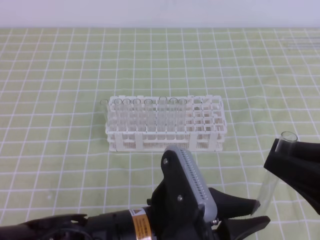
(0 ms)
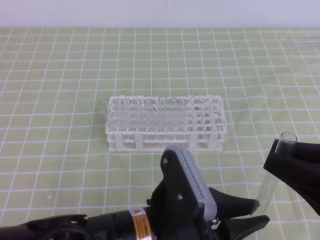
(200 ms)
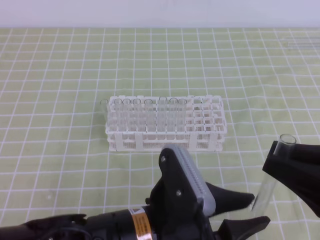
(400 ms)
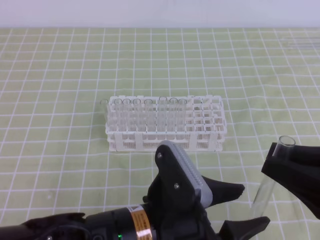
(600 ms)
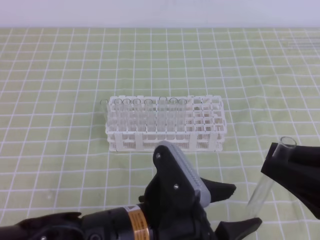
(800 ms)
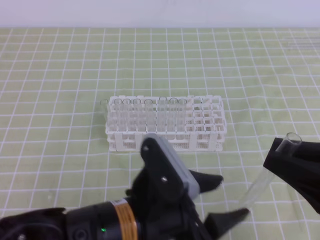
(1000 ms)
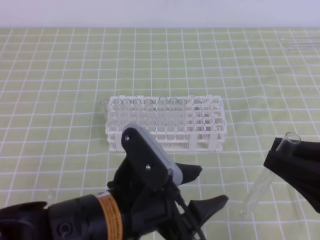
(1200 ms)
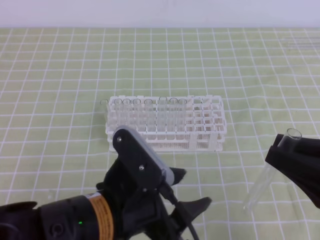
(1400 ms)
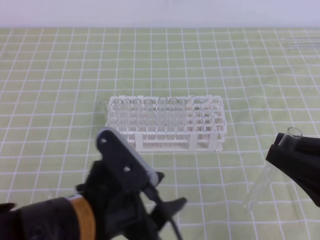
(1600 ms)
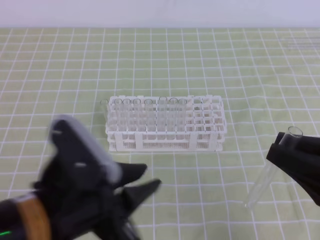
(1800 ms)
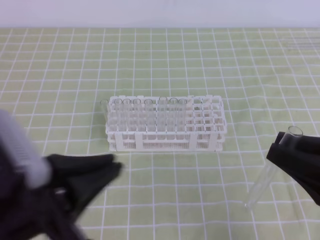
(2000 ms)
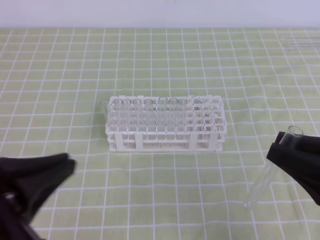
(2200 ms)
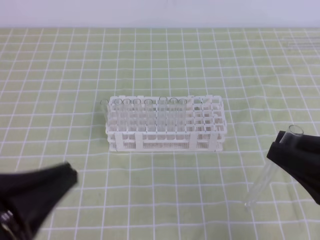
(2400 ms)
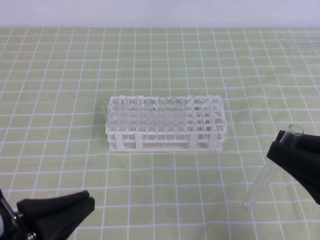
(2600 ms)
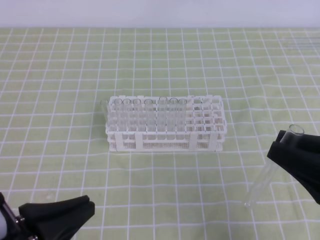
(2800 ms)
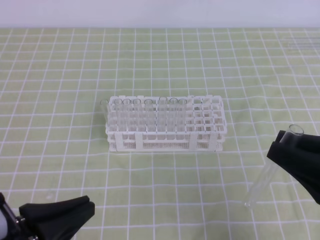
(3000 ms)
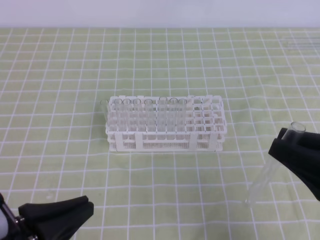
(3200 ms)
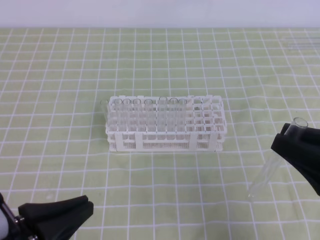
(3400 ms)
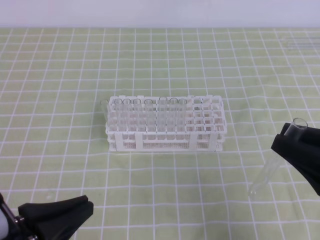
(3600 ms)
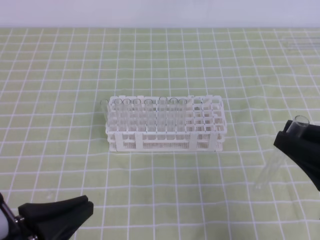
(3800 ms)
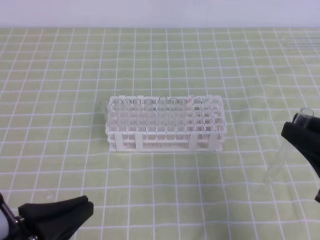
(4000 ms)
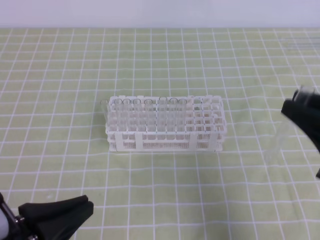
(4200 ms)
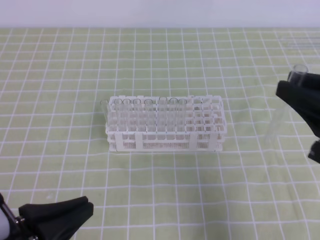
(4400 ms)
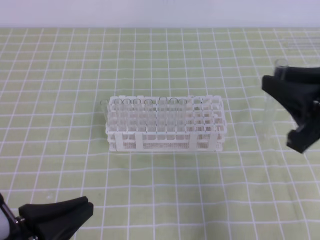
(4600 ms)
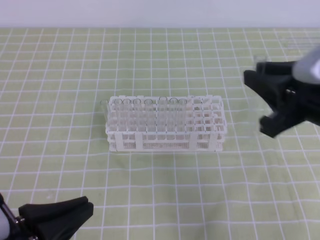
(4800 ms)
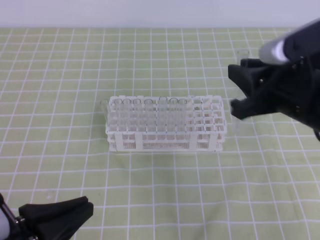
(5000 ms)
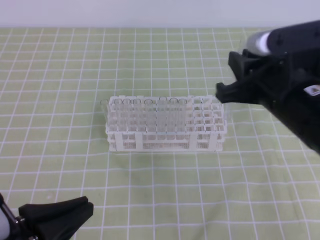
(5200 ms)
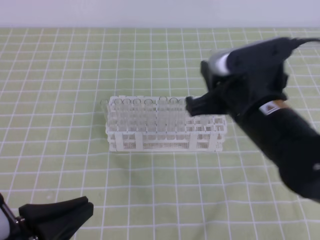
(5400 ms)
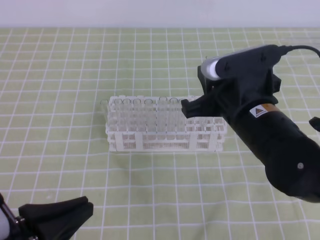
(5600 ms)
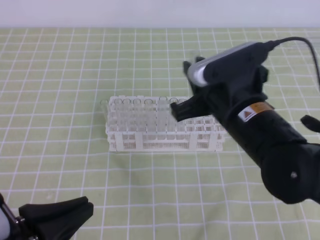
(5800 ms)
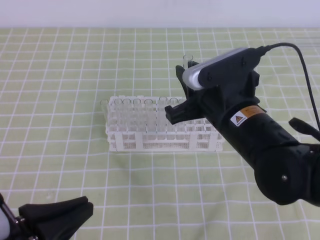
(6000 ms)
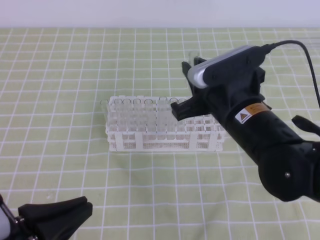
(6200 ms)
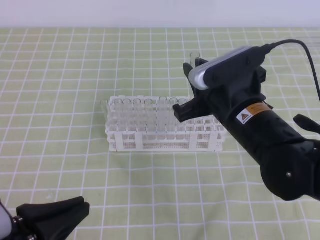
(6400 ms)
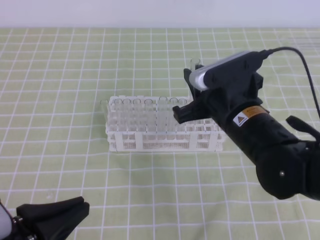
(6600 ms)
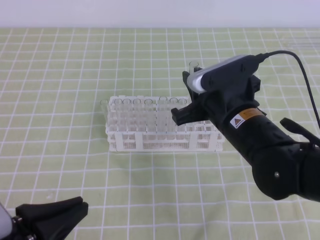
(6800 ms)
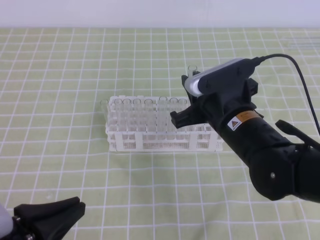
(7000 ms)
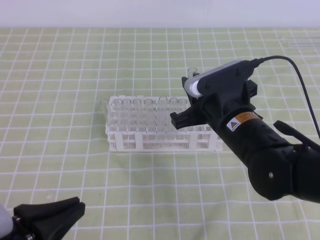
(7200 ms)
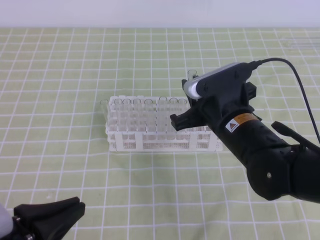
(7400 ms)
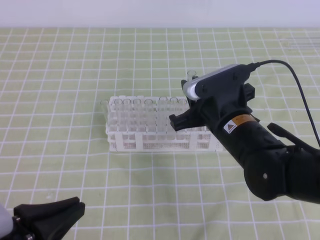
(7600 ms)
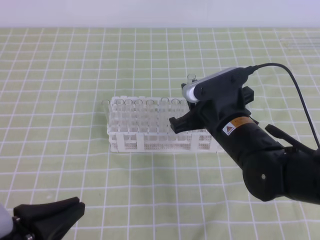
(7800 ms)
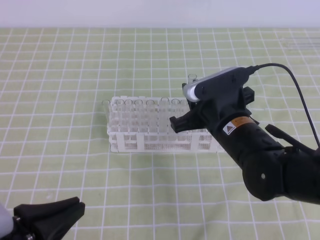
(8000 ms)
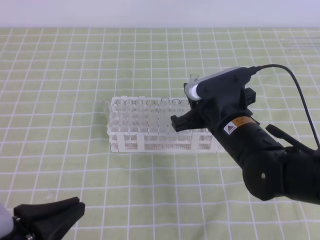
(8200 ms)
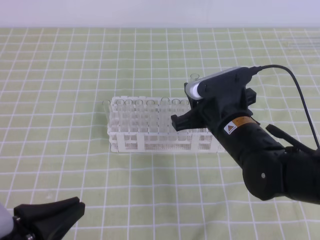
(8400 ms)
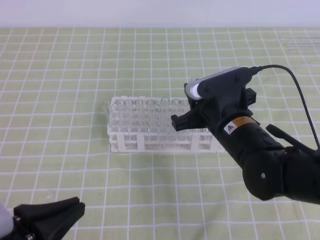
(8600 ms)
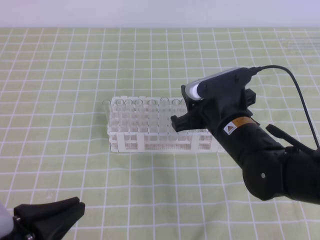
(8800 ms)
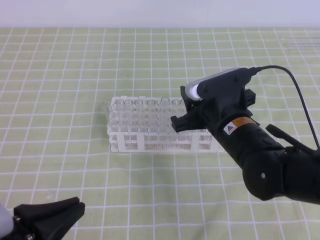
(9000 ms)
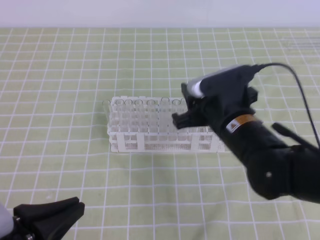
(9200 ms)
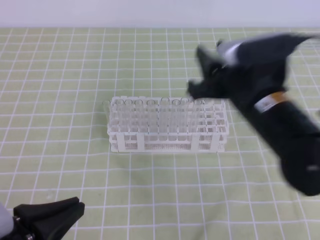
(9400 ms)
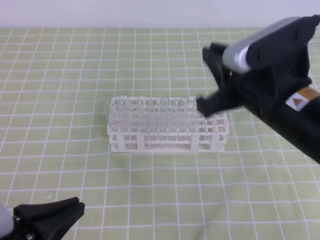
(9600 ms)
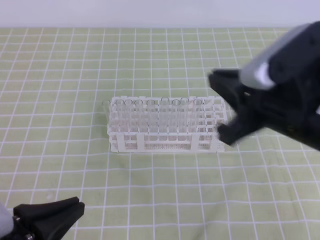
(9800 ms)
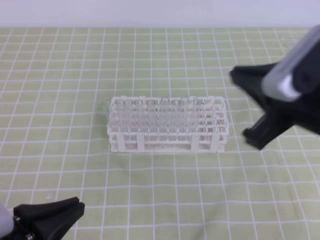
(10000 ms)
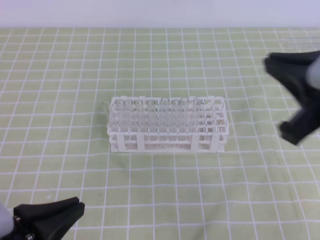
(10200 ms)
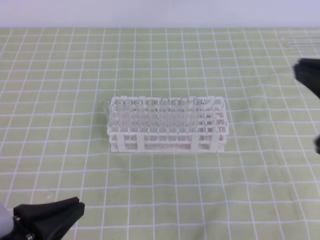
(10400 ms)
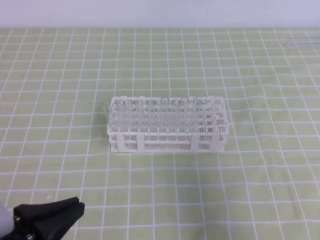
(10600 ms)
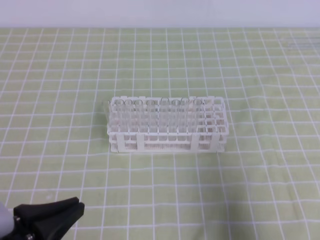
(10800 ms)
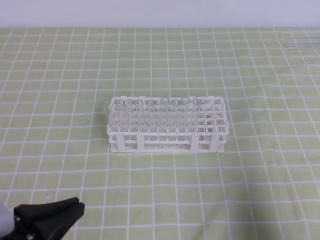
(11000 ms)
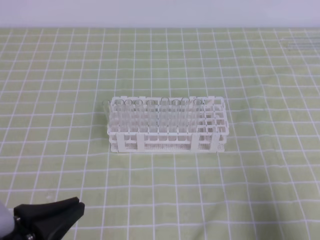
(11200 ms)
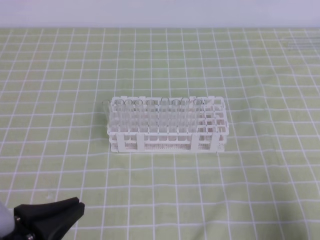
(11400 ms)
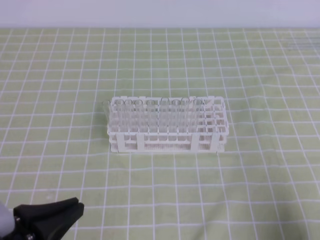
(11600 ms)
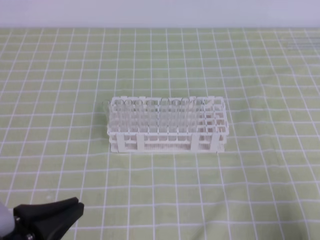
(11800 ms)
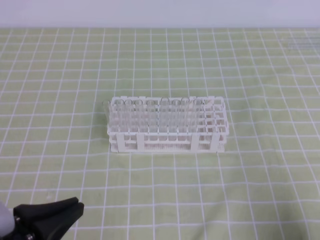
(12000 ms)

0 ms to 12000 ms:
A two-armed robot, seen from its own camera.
0 ms to 1600 ms: The left gripper is displaced to the left by roughly 5 cm, and opens up.
1600 ms to 3000 ms: The left gripper shifts about 10 cm to the left, and closes.
3000 ms to 4400 ms: The right gripper ends up some 5 cm from where it was.
4400 ms to 6000 ms: The right gripper goes about 15 cm to the left and forward.
6000 ms to 7600 ms: The right gripper changes place by some 5 cm.
7600 ms to 9000 ms: The right gripper opens.
9000 ms to 10400 ms: The right gripper goes approximately 25 cm upward, to the right and backward, and closes.
10400 ms to 12000 ms: The right gripper heads downward, backward and to the right, covering some 25 cm.

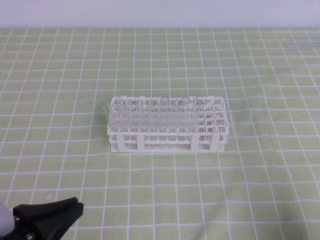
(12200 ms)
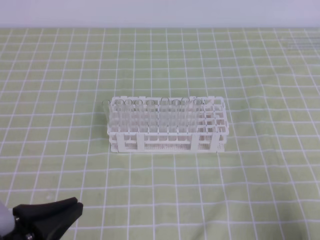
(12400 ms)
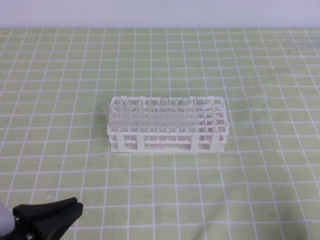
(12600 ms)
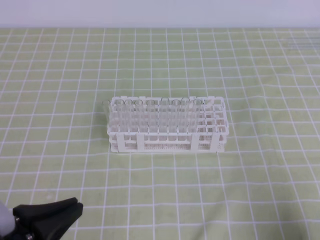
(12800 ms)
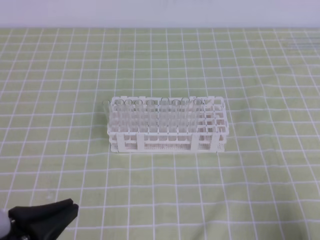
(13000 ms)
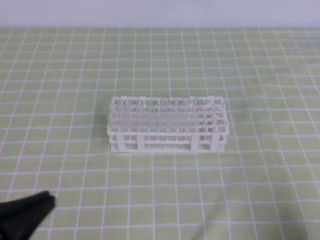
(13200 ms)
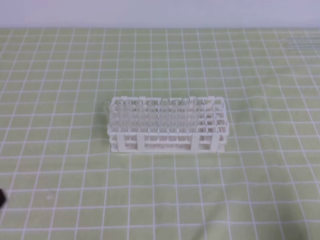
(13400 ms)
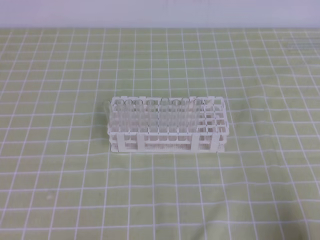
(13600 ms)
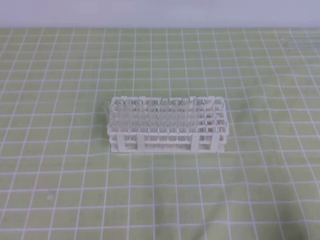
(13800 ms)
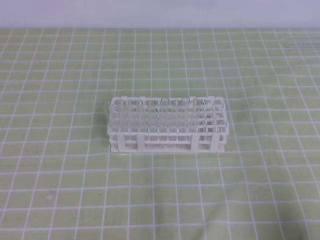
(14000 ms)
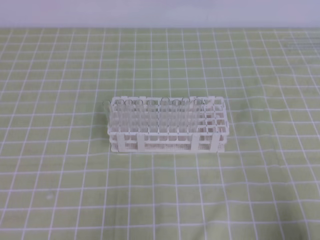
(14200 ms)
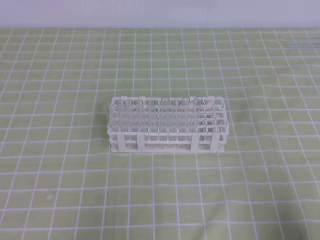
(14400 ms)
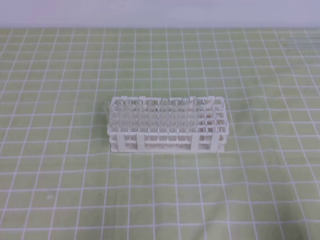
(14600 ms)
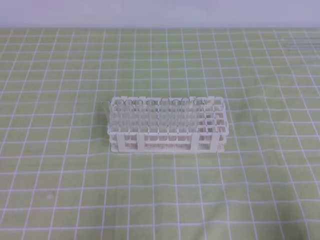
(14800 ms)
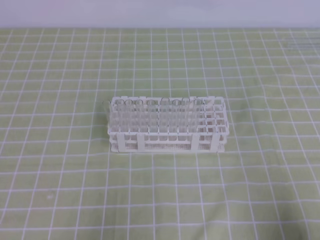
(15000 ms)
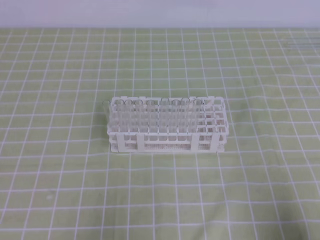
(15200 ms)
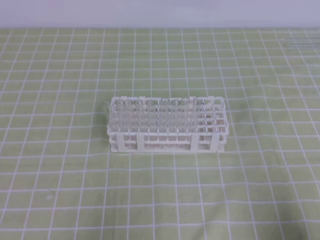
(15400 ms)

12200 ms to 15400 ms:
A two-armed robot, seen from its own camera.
12200 ms to 13800 ms: The left gripper travels to the left by approximately 10 cm.

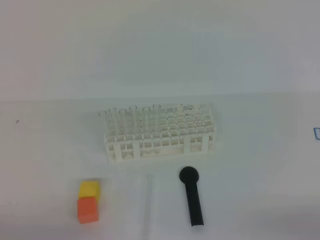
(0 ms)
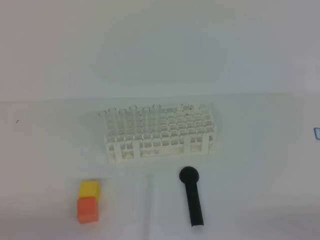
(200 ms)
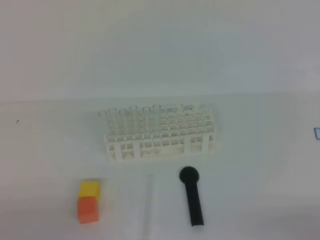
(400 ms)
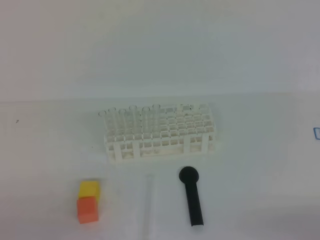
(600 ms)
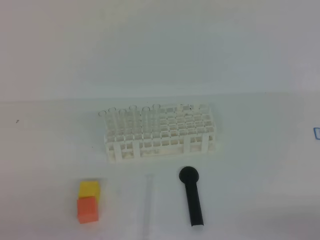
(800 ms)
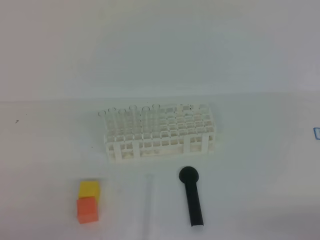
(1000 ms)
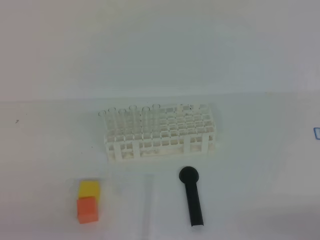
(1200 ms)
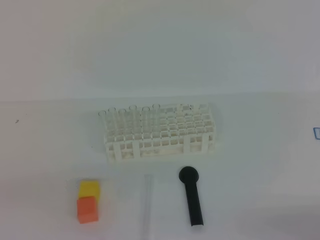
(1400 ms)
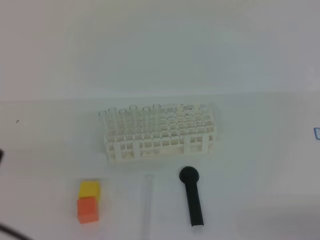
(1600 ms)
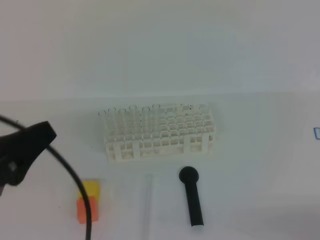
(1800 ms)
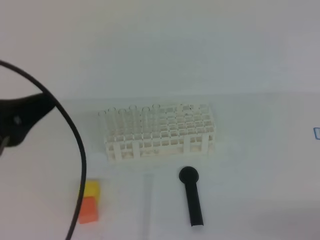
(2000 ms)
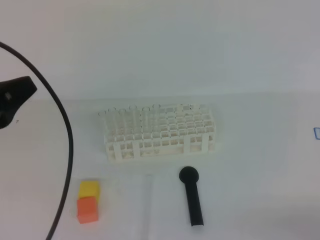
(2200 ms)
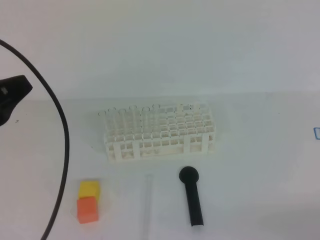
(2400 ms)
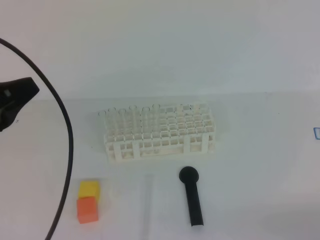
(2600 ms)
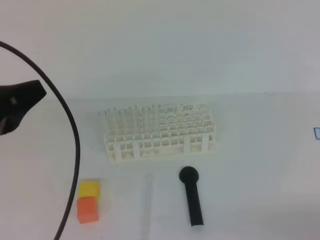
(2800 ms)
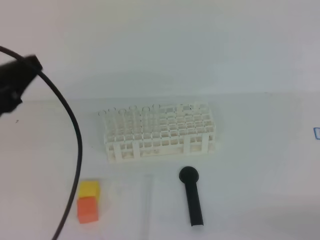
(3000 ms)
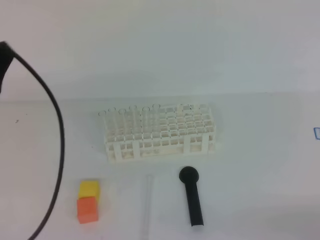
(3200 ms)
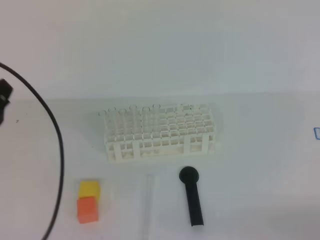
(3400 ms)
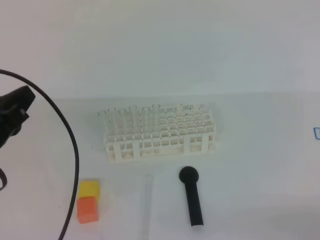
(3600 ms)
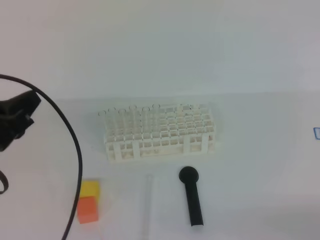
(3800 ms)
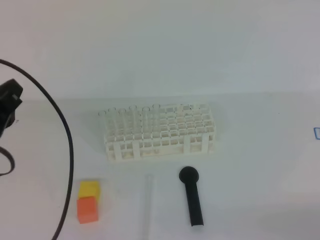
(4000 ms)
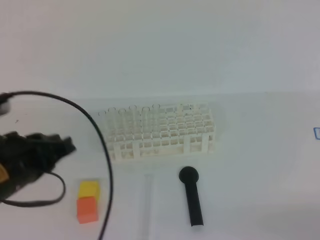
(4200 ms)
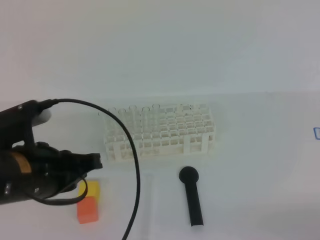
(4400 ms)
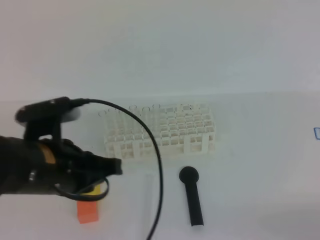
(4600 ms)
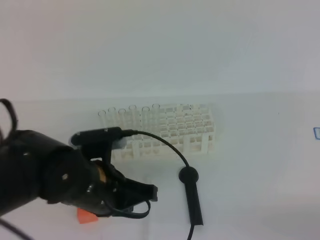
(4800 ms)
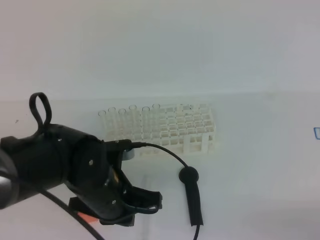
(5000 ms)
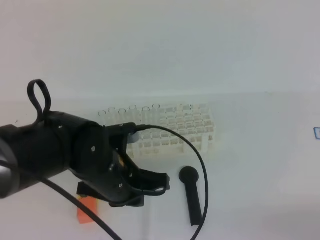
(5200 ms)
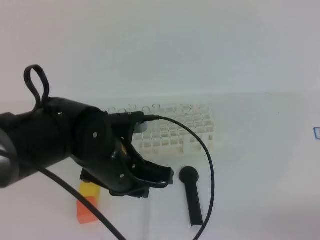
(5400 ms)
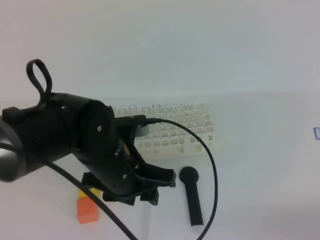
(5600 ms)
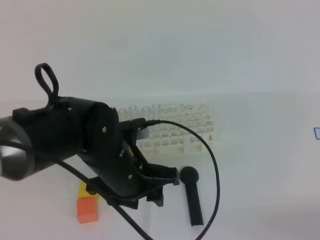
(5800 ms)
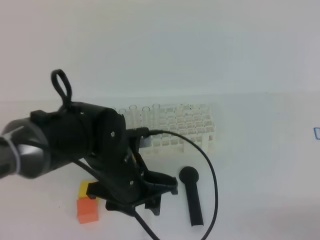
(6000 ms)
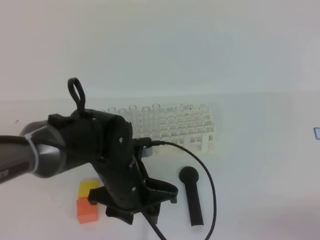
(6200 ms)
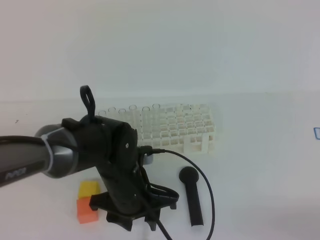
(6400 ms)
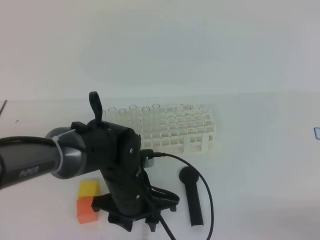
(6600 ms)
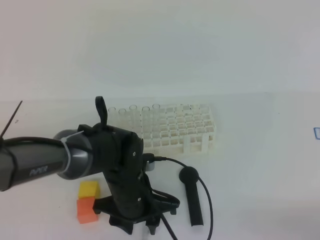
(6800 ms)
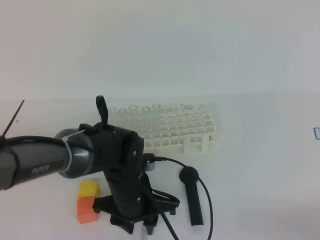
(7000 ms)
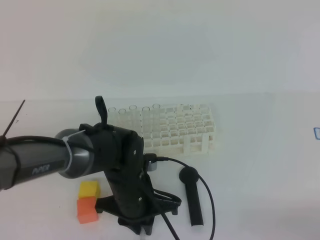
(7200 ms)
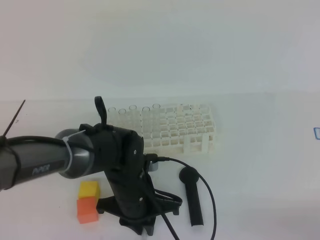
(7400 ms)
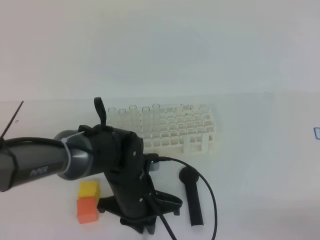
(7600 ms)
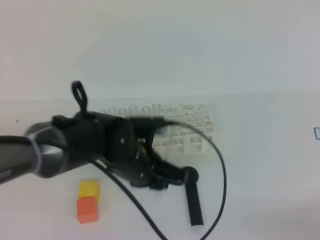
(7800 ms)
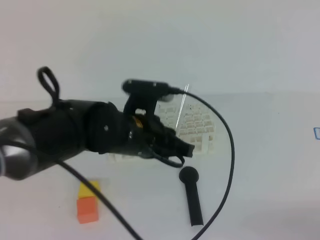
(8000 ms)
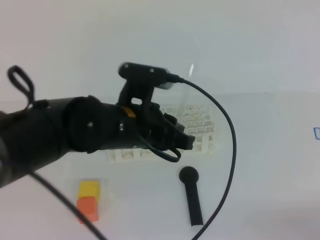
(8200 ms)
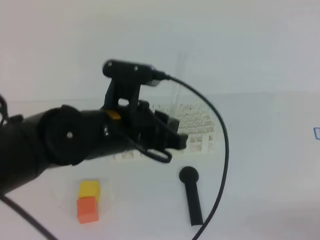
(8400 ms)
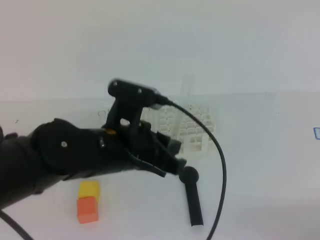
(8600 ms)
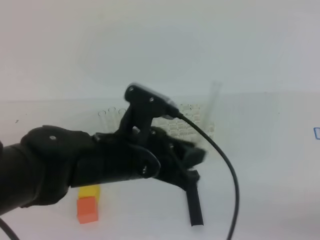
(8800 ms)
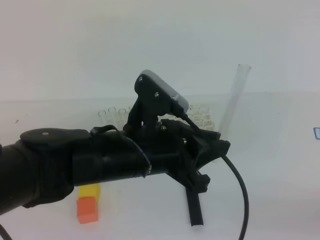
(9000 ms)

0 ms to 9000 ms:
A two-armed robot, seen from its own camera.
1600 ms to 3000 ms: The left gripper travels forward by some 15 cm.
3000 ms to 4400 ms: The left gripper moves downward, some 5 cm.
4400 ms to 6000 ms: The left gripper travels to the right and downward by some 15 cm, and opens.
6000 ms to 7600 ms: The left gripper goes approximately 5 cm downward, and closes up.
7600 ms to 9000 ms: The left gripper travels upward and backward by about 15 cm.
